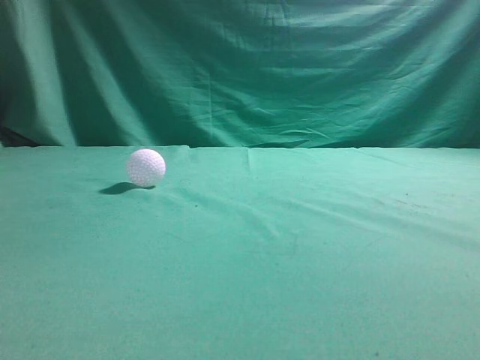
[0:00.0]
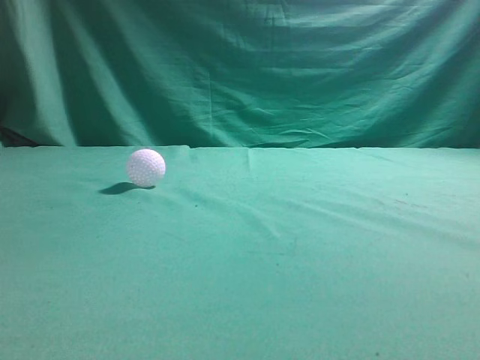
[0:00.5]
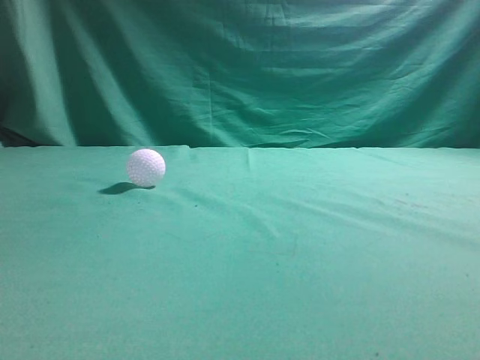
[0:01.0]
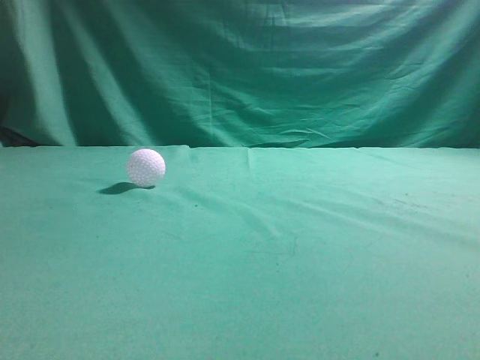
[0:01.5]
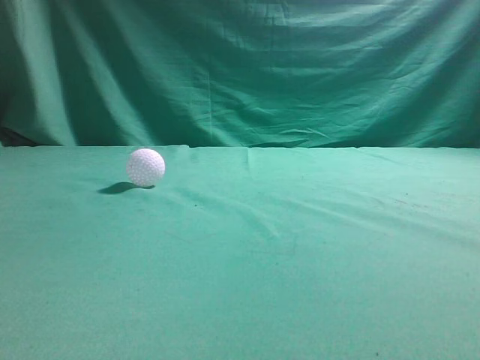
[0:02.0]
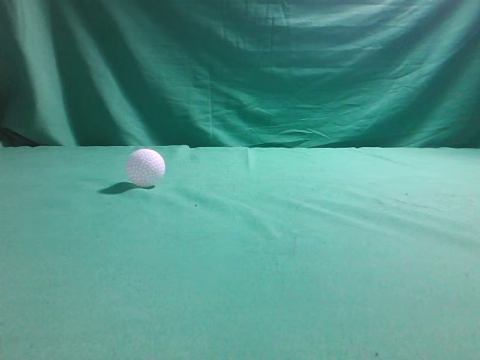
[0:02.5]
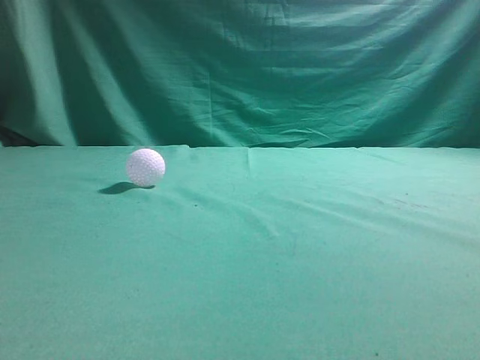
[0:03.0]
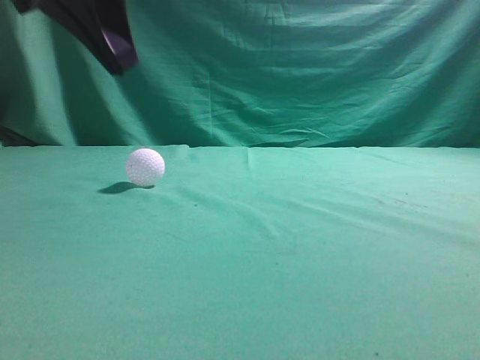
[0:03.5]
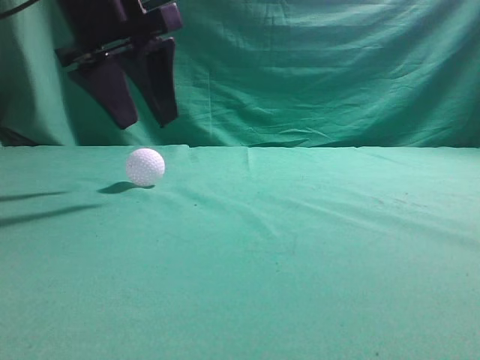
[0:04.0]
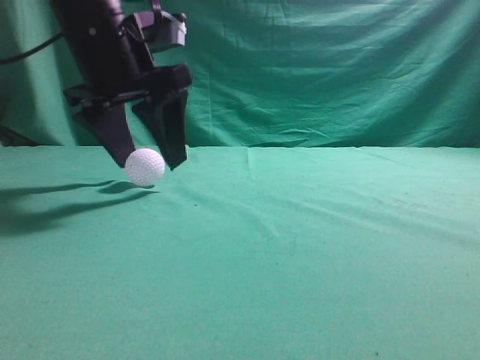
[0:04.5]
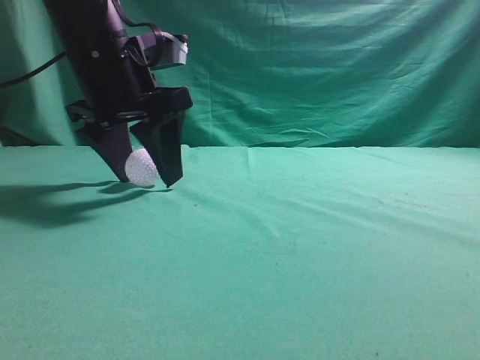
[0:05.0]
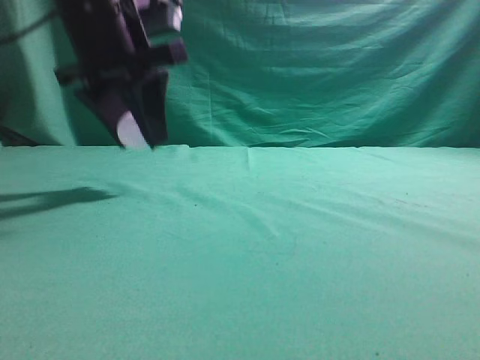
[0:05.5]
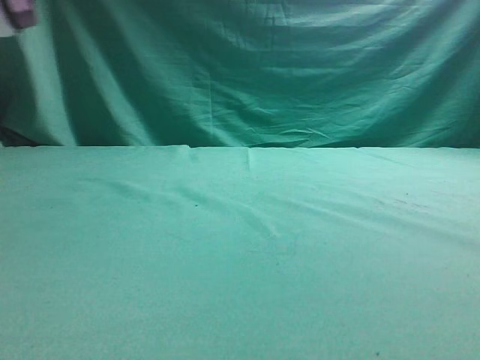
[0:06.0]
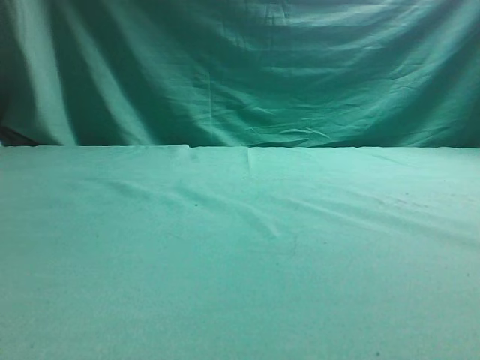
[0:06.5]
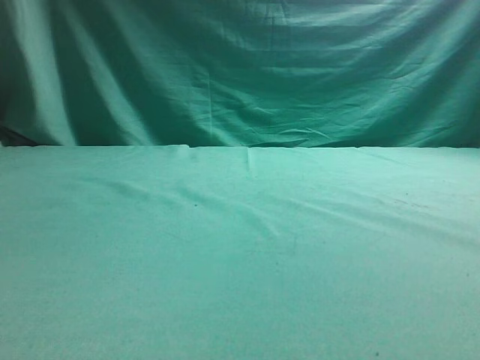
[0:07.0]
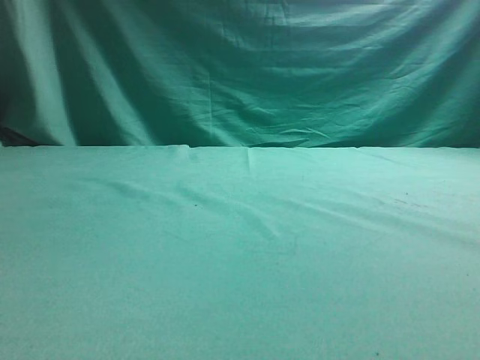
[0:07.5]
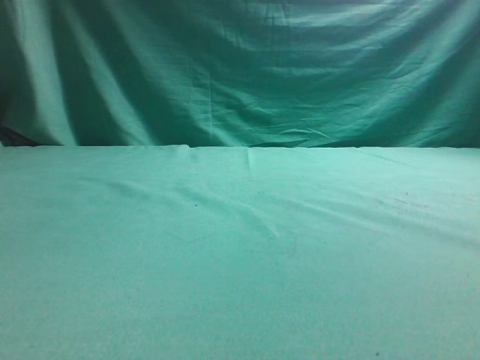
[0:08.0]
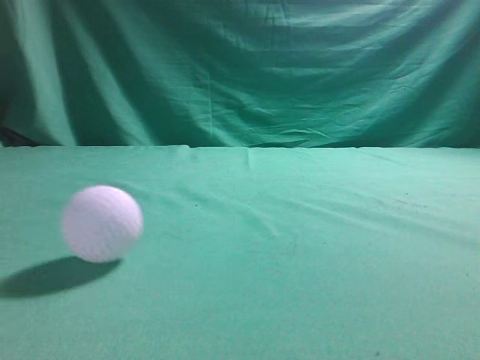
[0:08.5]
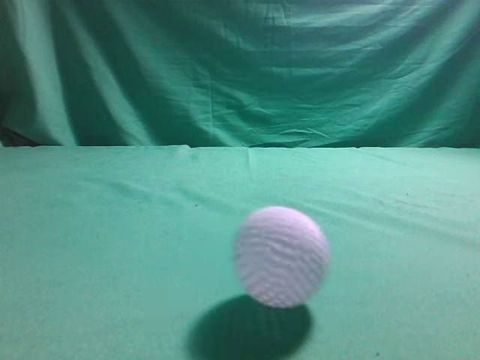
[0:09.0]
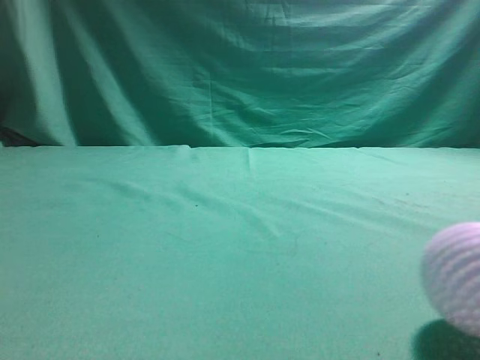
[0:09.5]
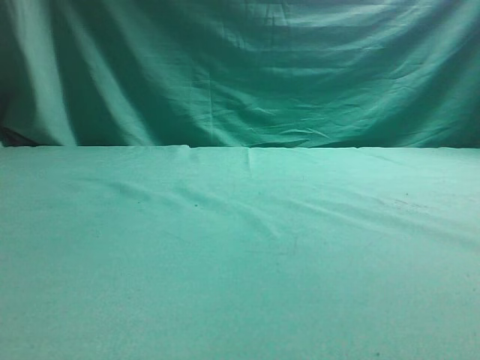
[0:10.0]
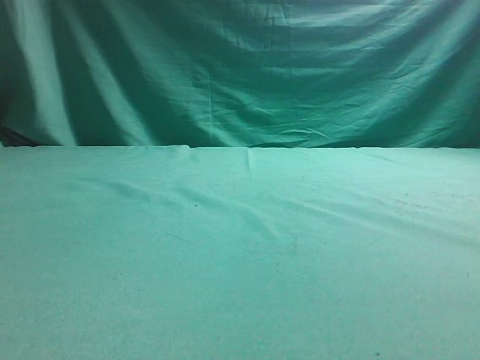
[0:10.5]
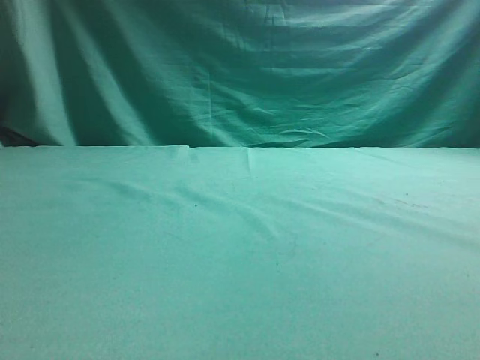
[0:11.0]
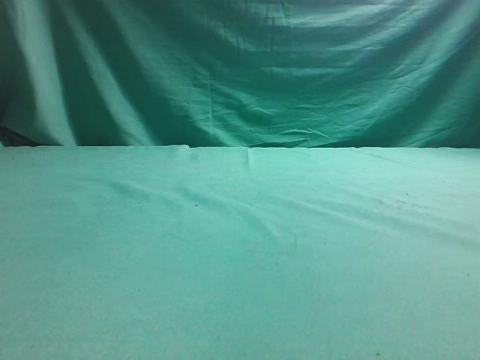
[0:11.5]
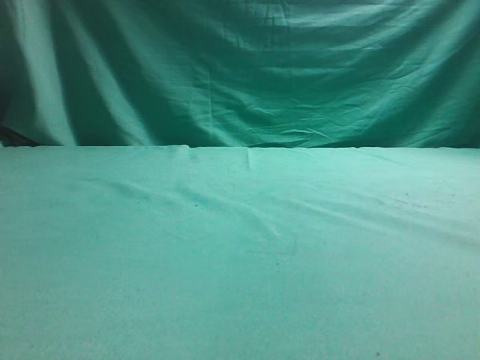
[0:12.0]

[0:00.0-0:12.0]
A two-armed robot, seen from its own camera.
Task of the whole recording: pick up the ball and place it on the plate, then pick up the ball from the plate and put it in the center of the table.
Step, 0:00.0 to 0:05.0: Grab the spherical object with your left arm.
Step, 0:05.5 to 0:07.5: Place the sphere on the white object.
0:02.0 to 0:04.0: The left gripper travels forward and to the right by roughly 35 cm, and opens.
0:04.0 to 0:06.0: The left gripper goes roughly 15 cm to the left, upward and backward, and closes its fingers.

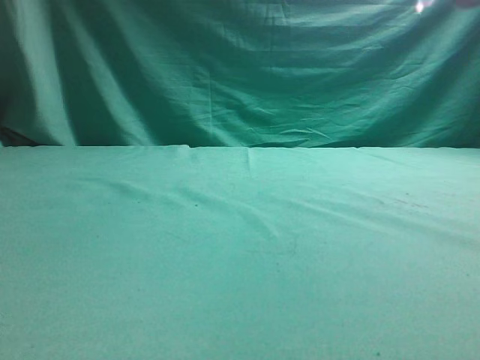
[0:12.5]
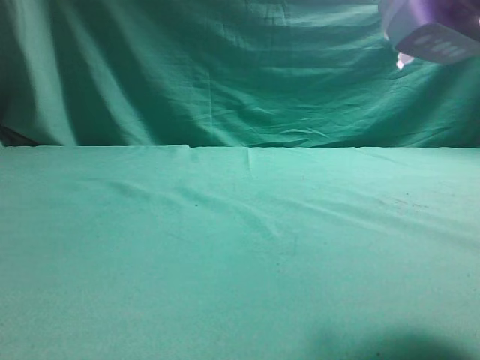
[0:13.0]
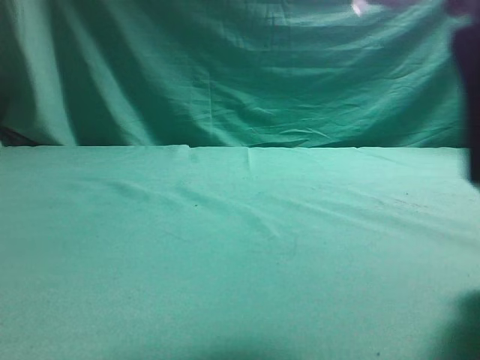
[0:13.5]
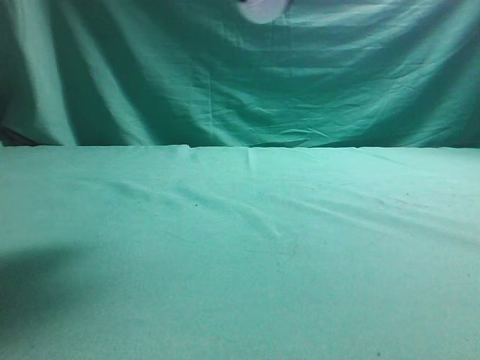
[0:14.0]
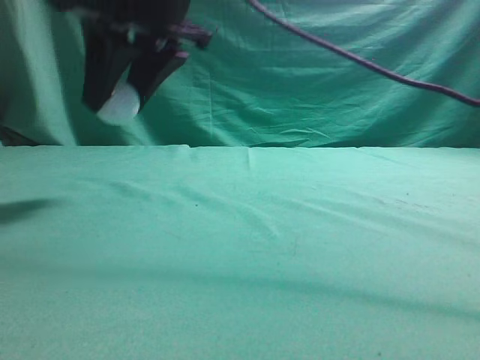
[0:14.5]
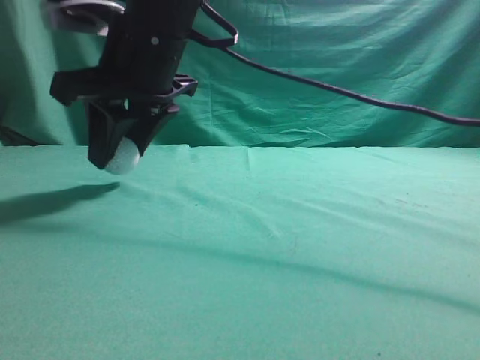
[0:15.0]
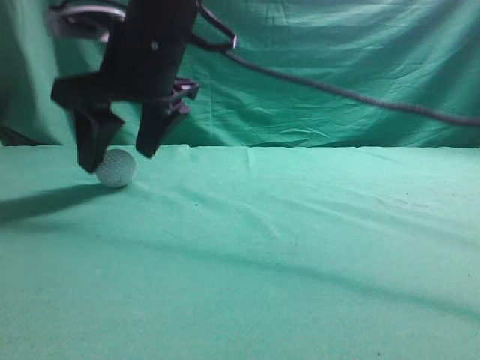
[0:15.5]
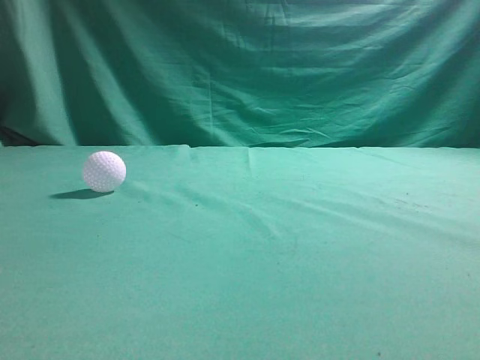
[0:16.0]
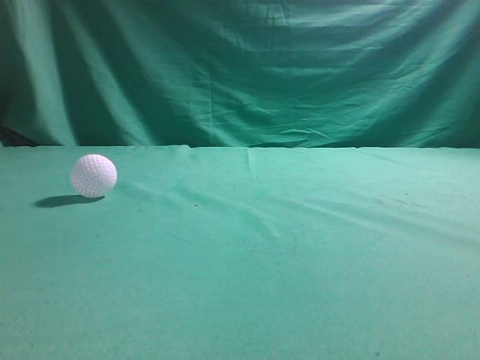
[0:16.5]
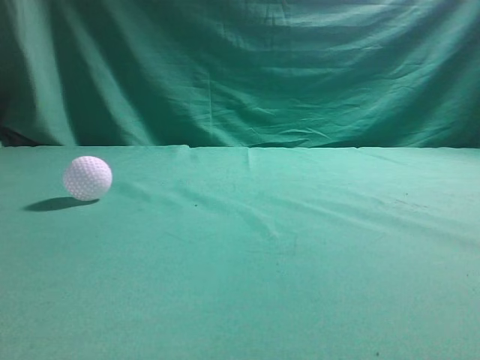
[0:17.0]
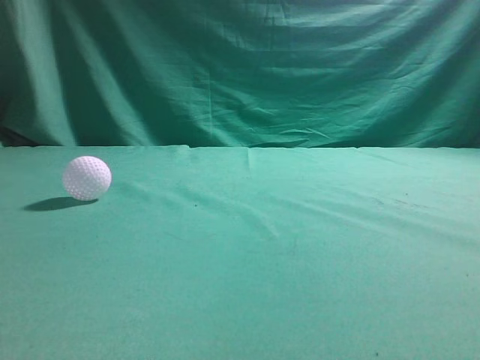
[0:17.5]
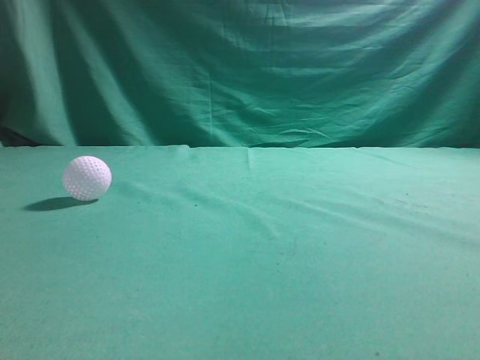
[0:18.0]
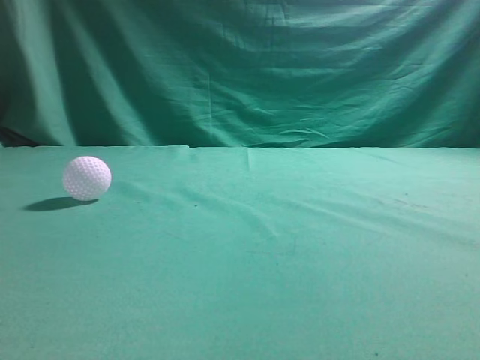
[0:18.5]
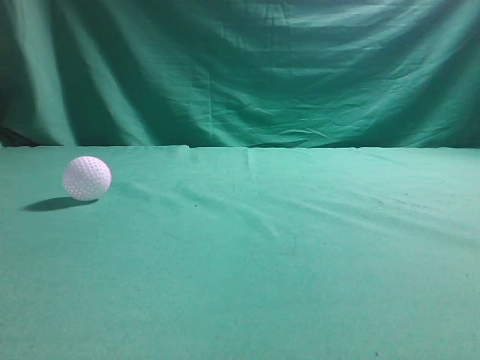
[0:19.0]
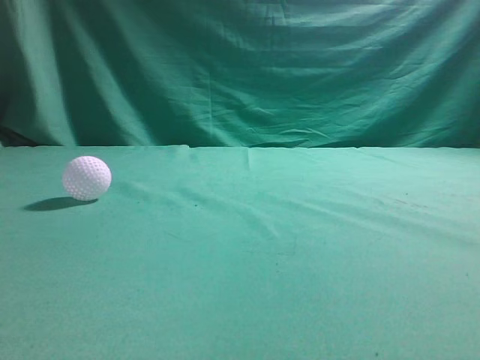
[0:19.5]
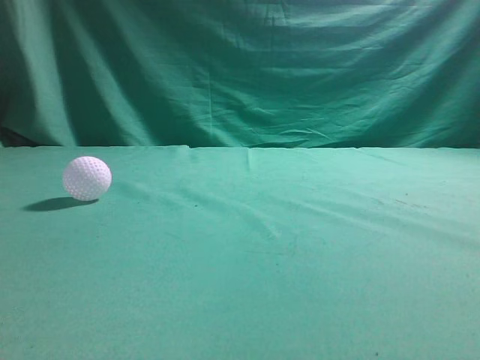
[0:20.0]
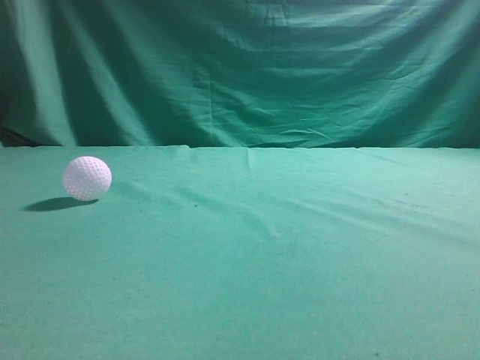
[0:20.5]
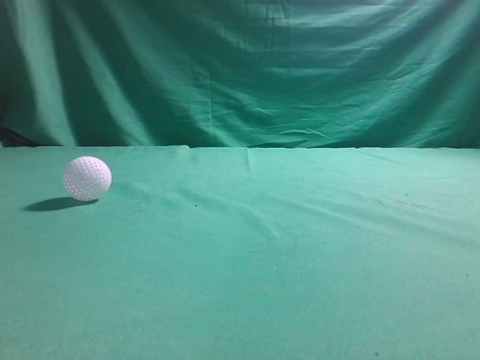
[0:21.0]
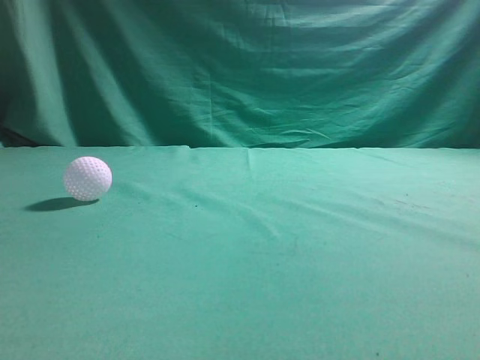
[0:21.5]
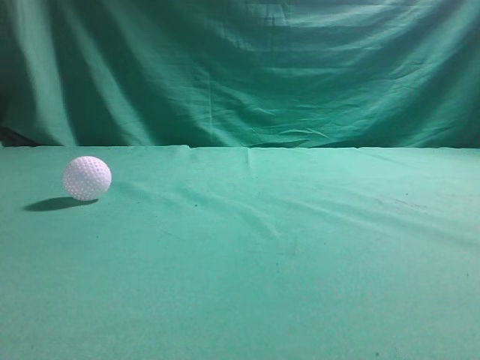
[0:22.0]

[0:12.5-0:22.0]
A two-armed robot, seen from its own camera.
Task of the whole recording: pick up the ball and place it on the plate, then pick up the ball from the plate and put it in the center of the table.
Step, 0:13.5 to 0:15.5: Put the picked-up object on the table.
0:12.5 to 0:14.5: The right gripper shifts roughly 30 cm to the left and forward, and closes.
0:14.5 to 0:16.5: The right gripper is displaced upward, to the right and backward by about 35 cm, and closes up.
